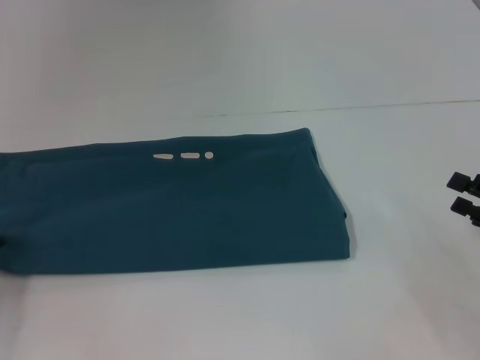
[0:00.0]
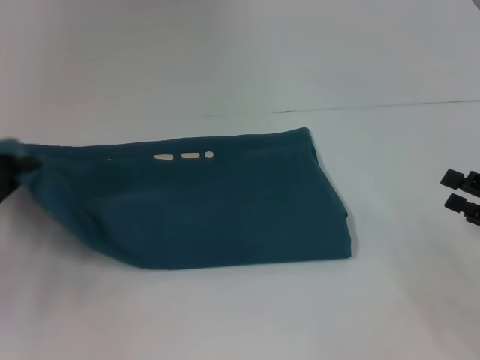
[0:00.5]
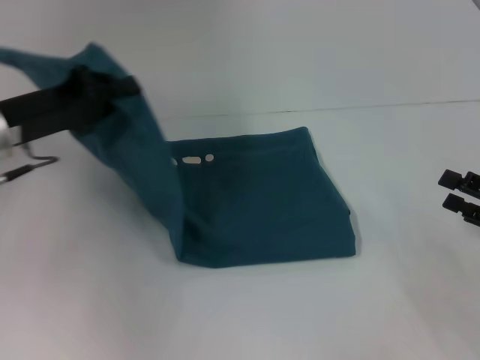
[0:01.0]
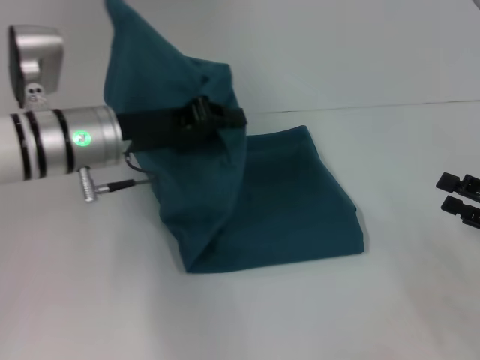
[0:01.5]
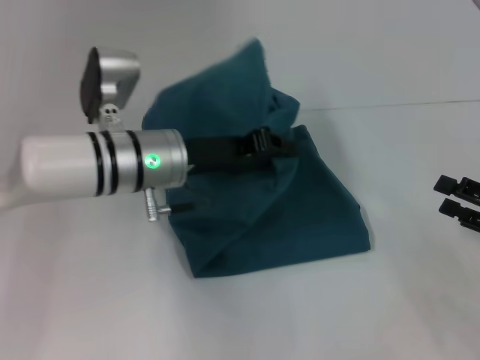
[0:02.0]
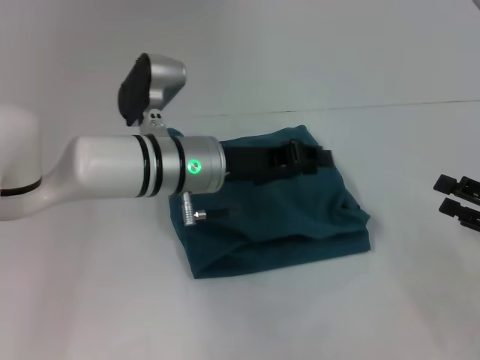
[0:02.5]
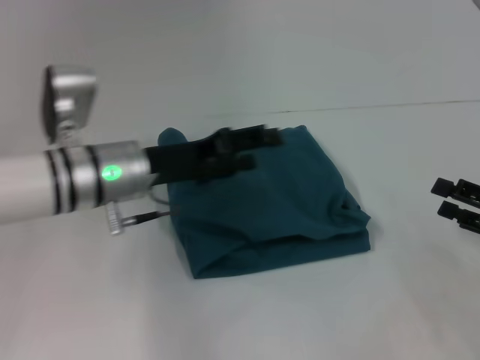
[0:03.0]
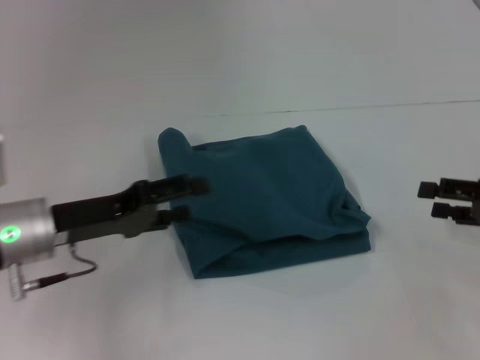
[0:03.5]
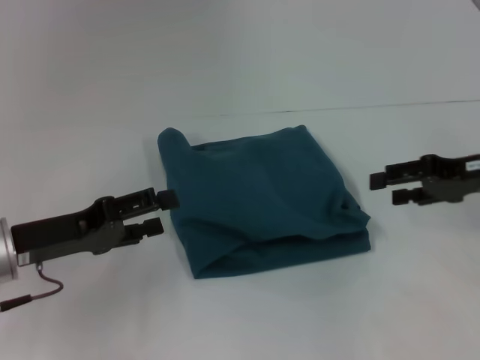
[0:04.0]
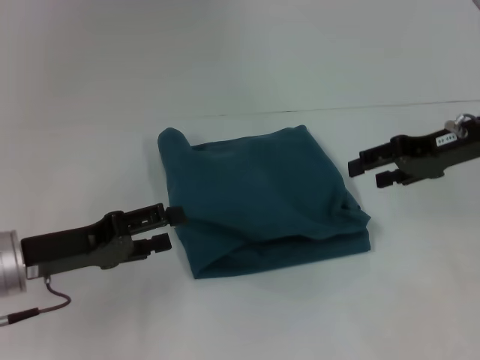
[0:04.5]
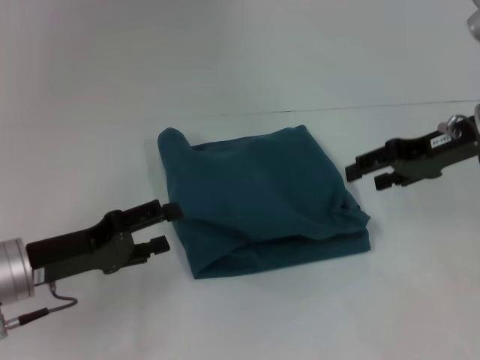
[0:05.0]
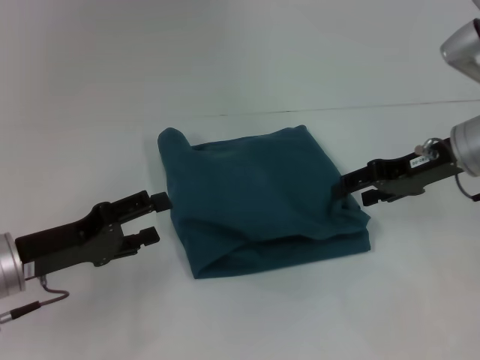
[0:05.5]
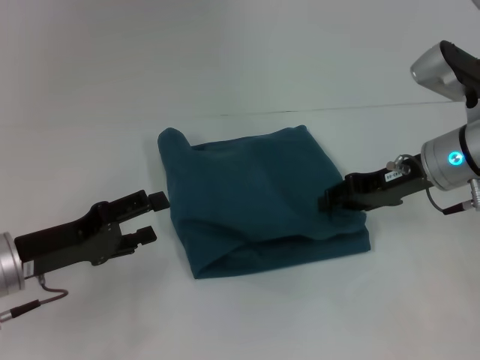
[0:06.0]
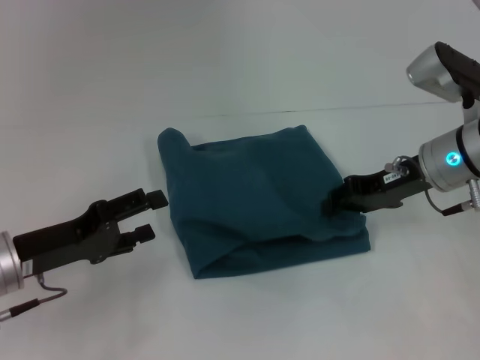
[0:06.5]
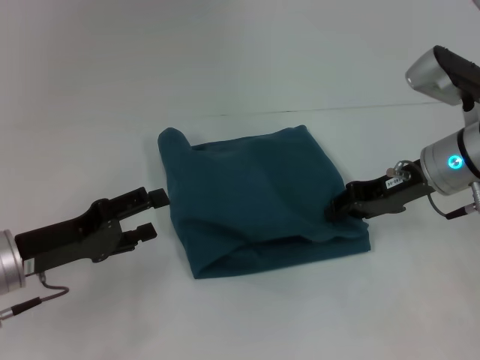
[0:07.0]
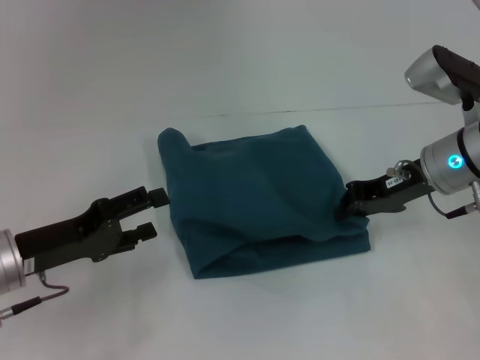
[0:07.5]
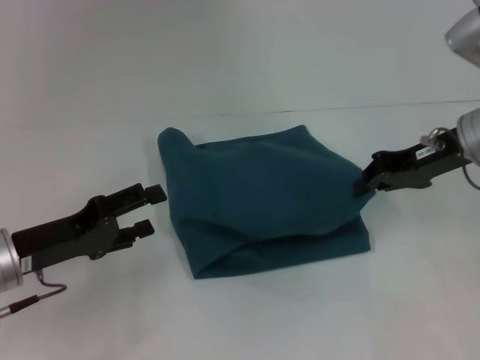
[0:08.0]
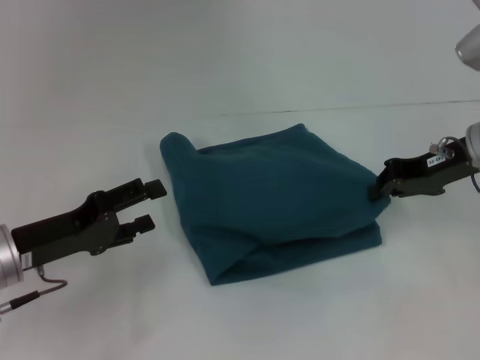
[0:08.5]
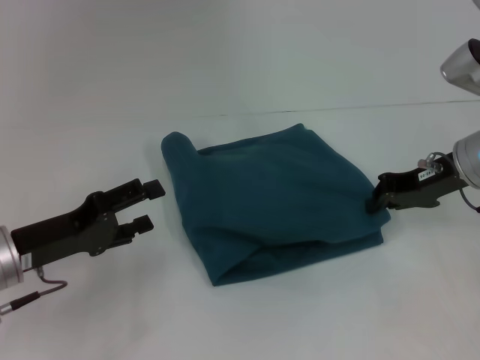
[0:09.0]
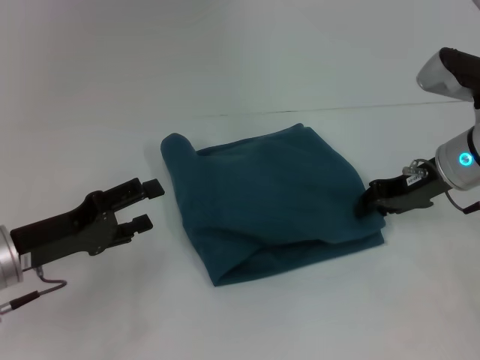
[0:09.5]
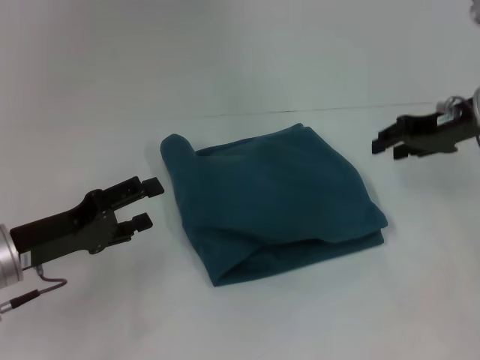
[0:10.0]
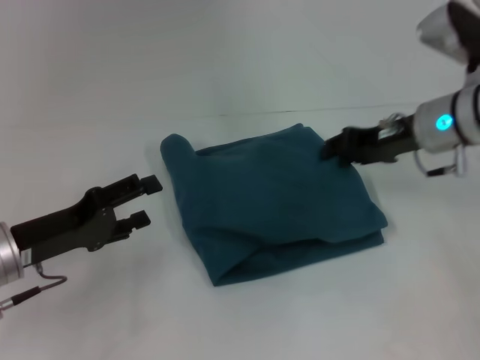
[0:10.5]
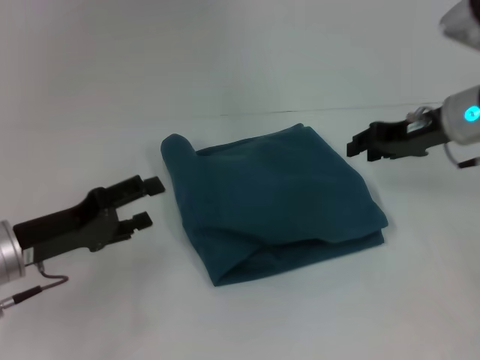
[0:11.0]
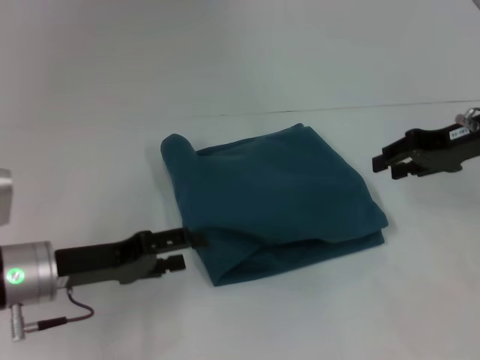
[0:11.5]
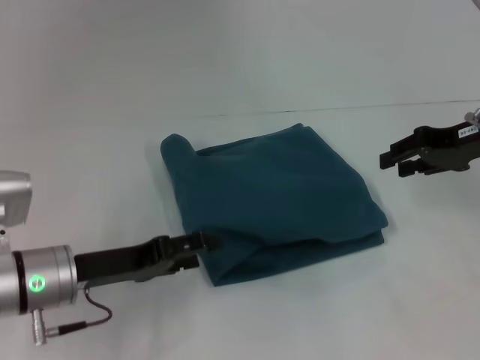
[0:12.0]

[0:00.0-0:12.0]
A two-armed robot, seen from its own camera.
Step, 0:00.0 to 0:02.5: Fold the clothes to the left.
0:00.0 to 0:02.0: The left gripper shifts about 25 cm to the right.
0:02.0 to 0:04.0: The left gripper goes approximately 15 cm to the left and backward, and opens; the right gripper travels forward and upward by some 15 cm.
0:04.0 to 0:06.0: The right gripper goes roughly 10 cm to the left.
0:06.0 to 0:08.0: The right gripper closes its fingers.
0:08.0 to 0:10.0: The right gripper opens its fingers.

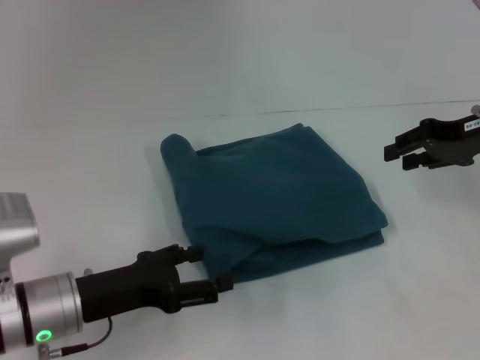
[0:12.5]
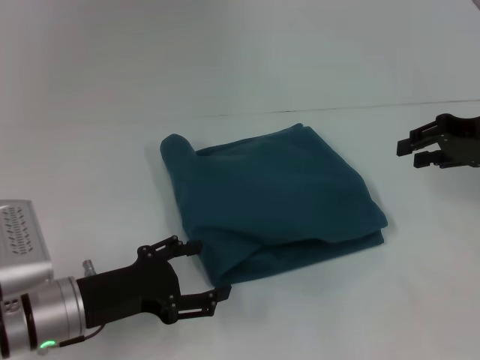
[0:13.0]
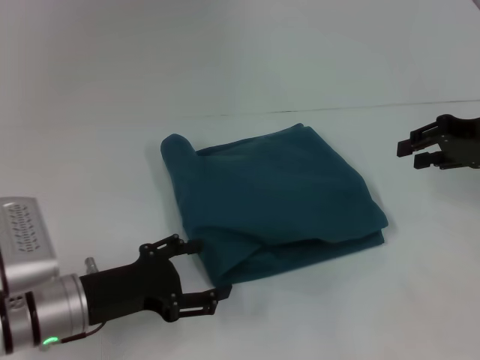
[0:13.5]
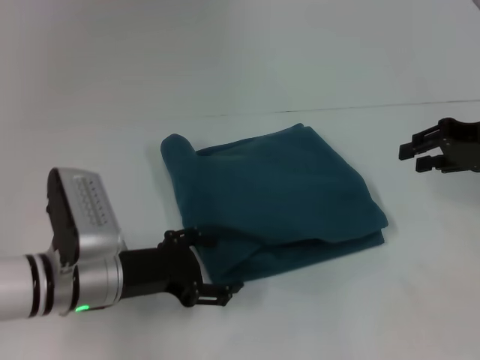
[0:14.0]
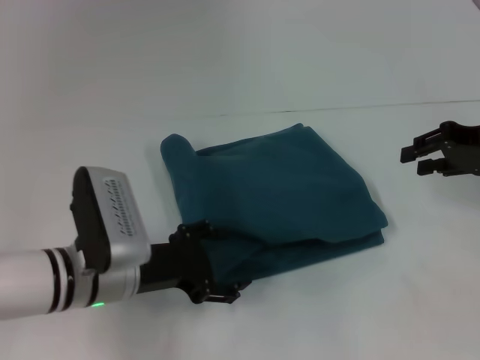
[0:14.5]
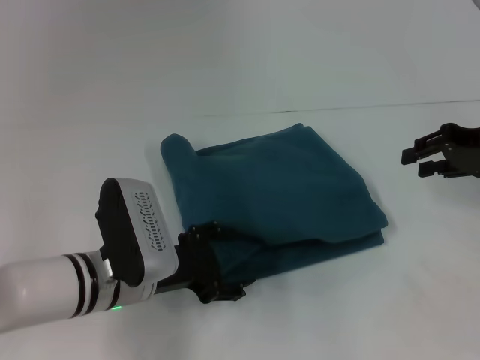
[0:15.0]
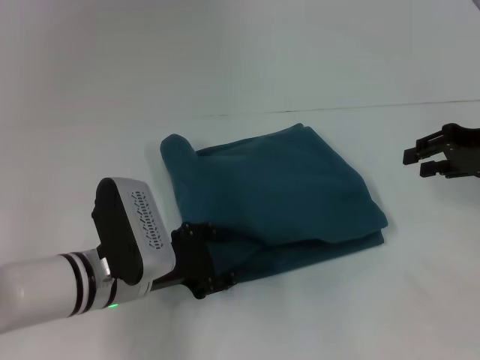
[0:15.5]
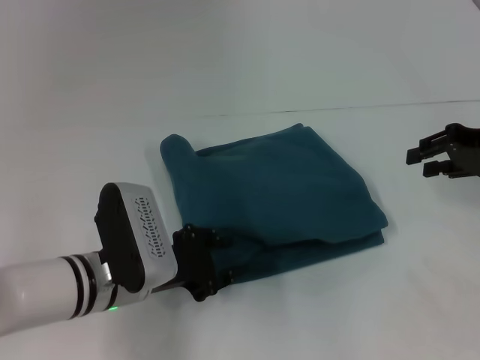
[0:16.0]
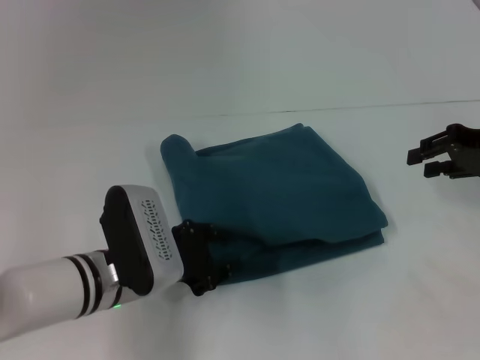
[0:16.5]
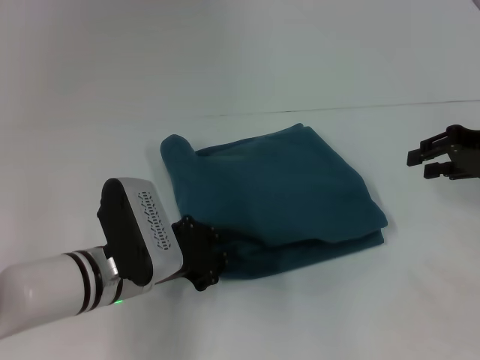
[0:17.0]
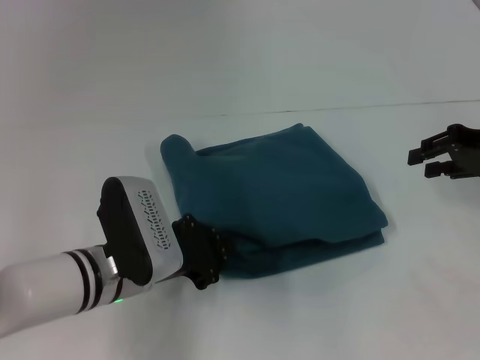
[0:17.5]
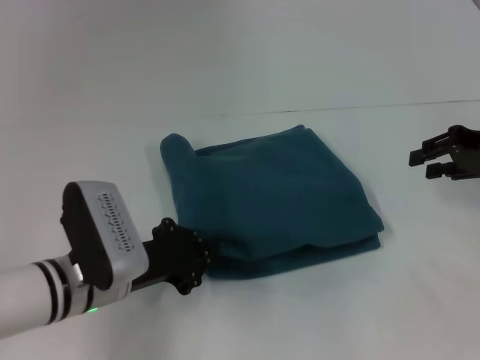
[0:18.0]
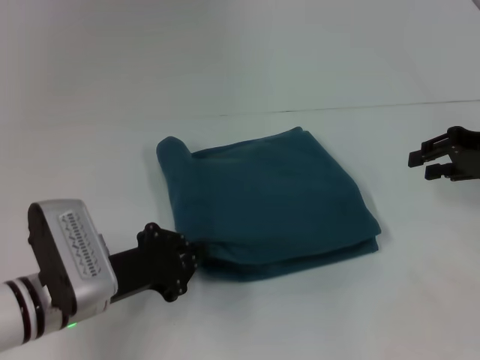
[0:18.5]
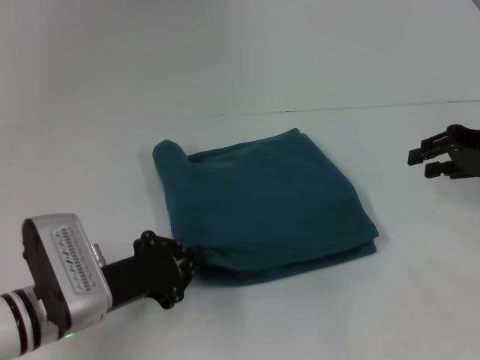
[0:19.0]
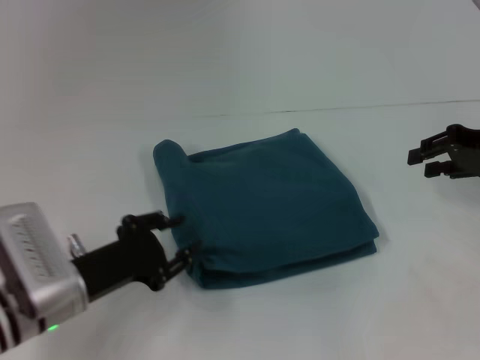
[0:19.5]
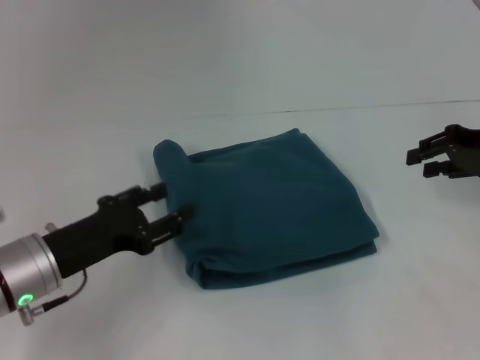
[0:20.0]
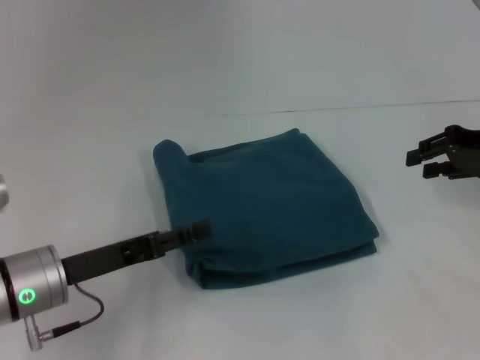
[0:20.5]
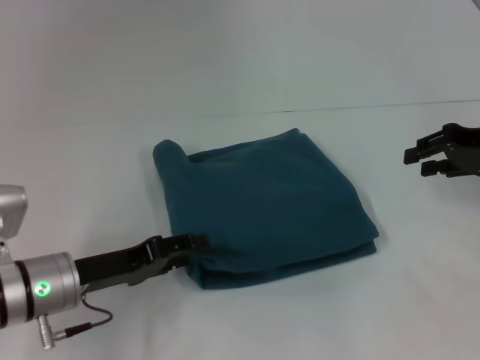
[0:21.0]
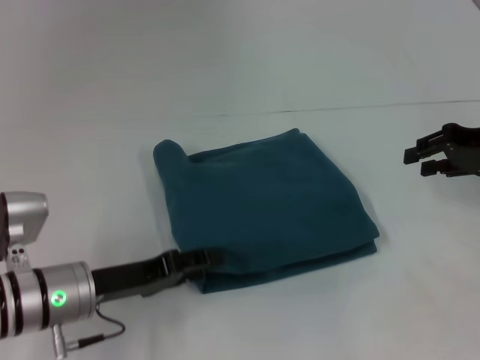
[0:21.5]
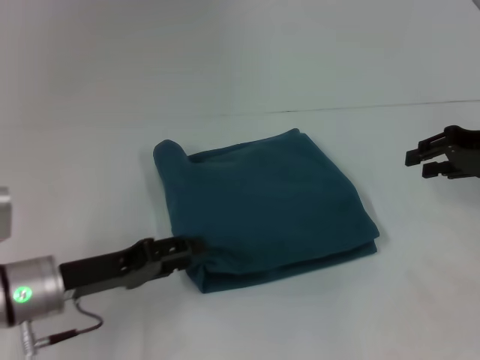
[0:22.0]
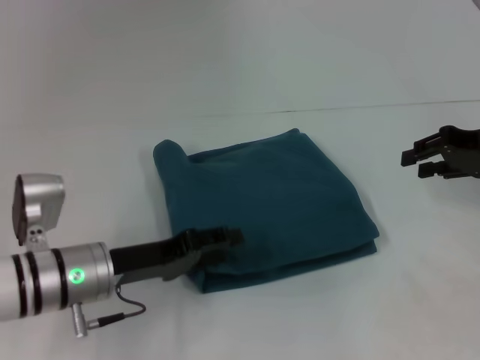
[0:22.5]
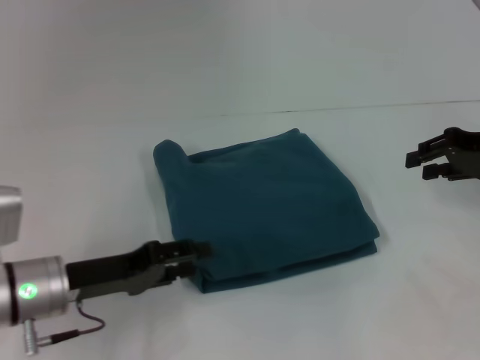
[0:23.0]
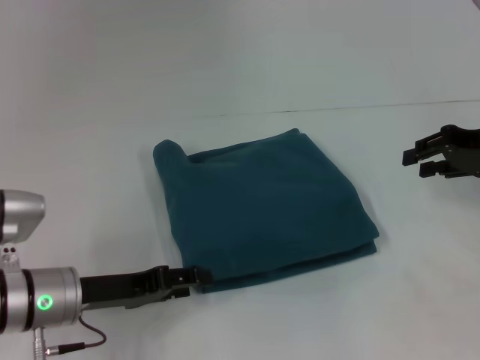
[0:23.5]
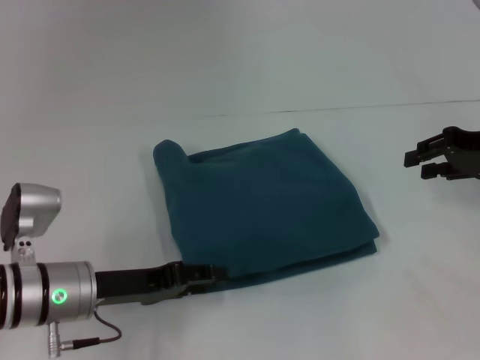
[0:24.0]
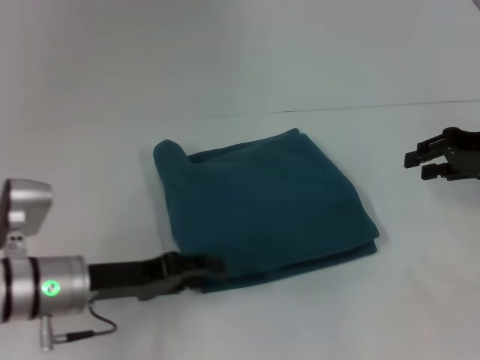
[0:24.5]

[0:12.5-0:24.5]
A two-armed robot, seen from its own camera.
0:12.5 to 0:14.5: The left gripper is displaced to the right by about 5 cm.
0:14.5 to 0:16.5: The left gripper closes its fingers.
0:16.5 to 0:18.5: The left gripper closes up.
0:18.5 to 0:20.5: The left gripper opens up.
0:22.5 to 0:24.5: There are only small adjustments of the grippers.

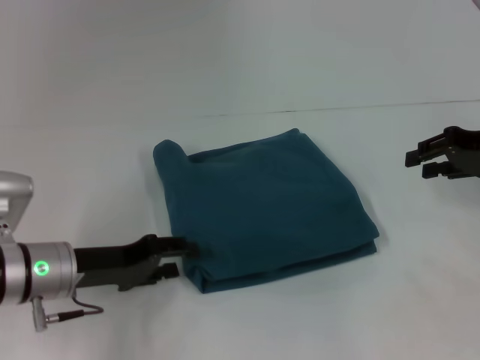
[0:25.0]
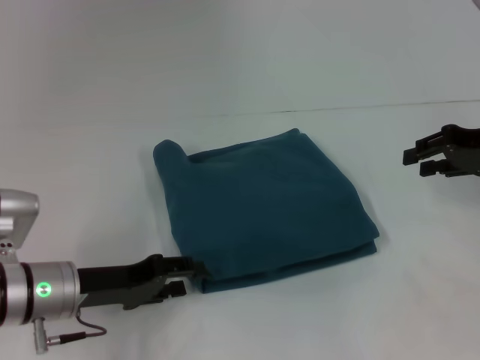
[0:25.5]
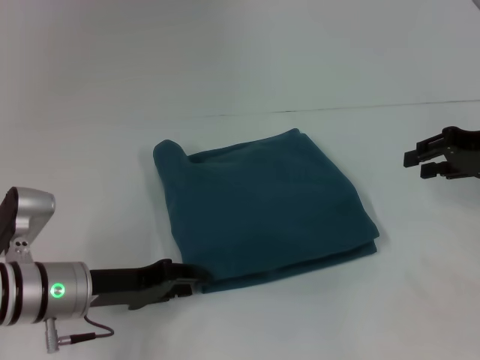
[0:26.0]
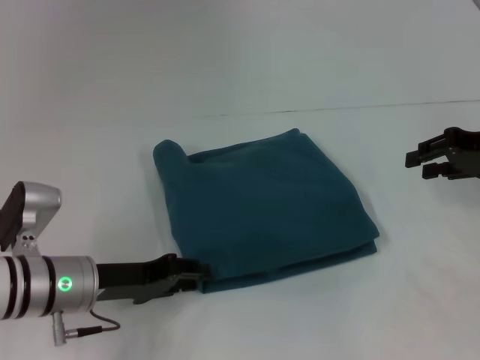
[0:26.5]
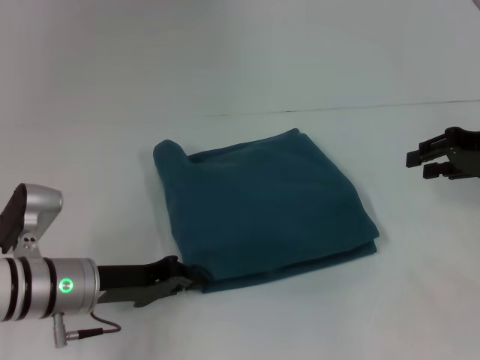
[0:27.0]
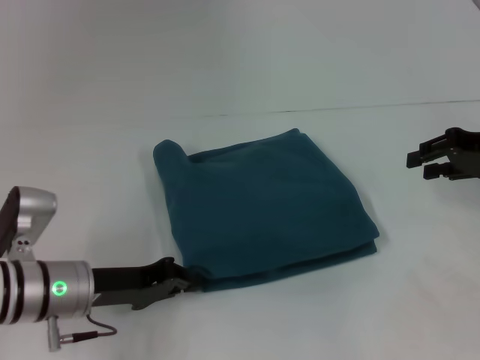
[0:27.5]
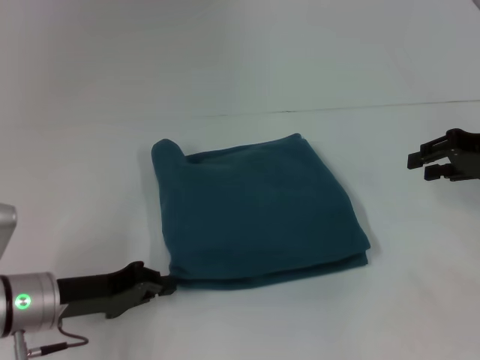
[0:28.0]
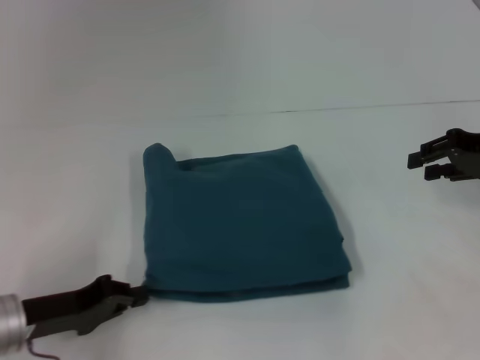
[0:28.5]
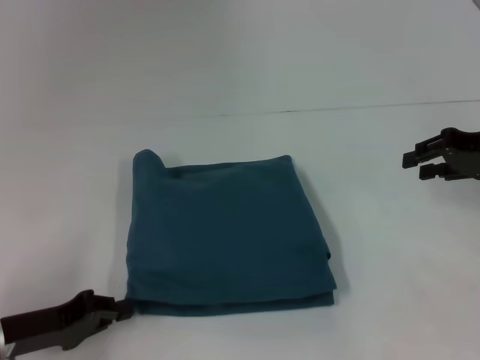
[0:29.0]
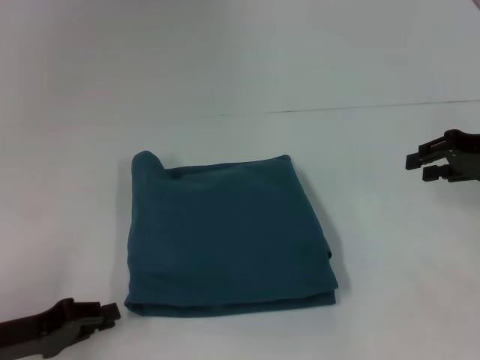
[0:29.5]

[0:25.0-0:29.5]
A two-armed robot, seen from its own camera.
0:25.0 to 0:27.0: The left gripper closes its fingers.
0:27.0 to 0:29.5: The left gripper moves to the left and backward, about 10 cm.
